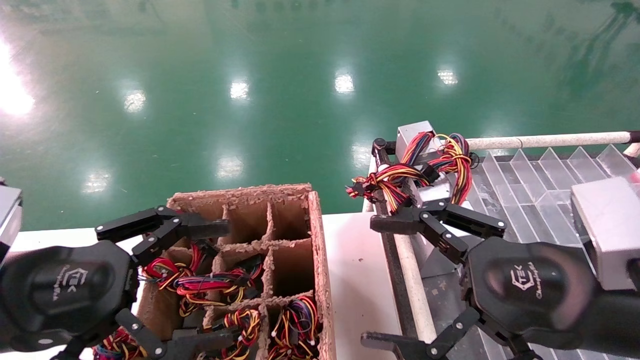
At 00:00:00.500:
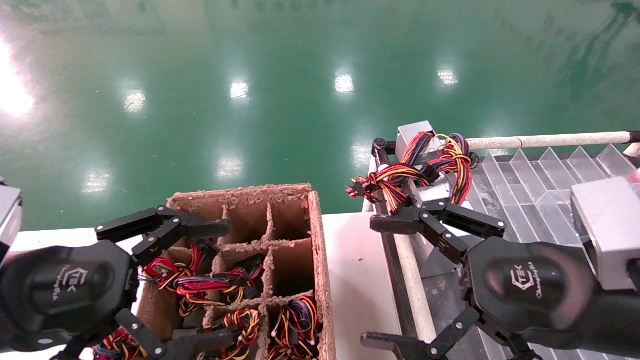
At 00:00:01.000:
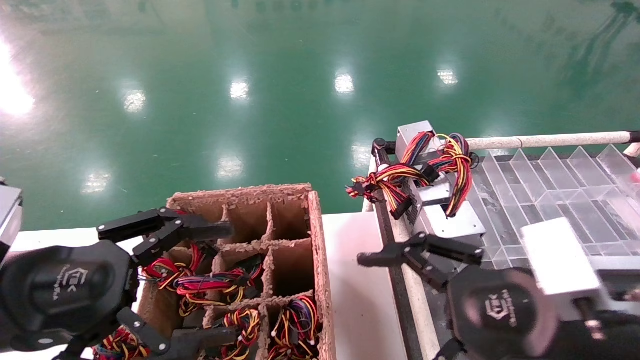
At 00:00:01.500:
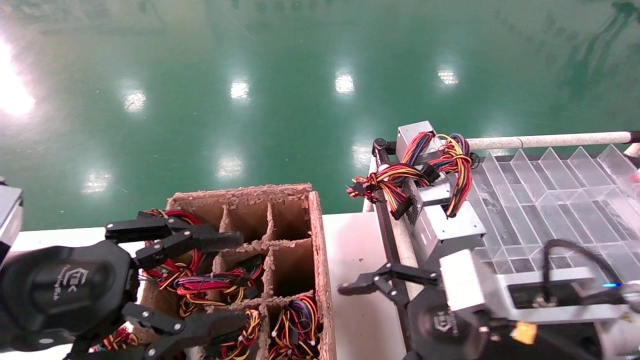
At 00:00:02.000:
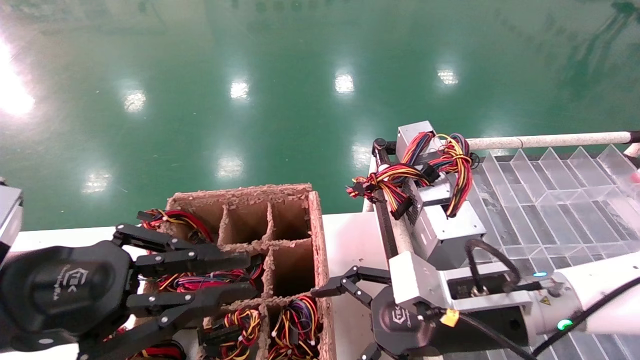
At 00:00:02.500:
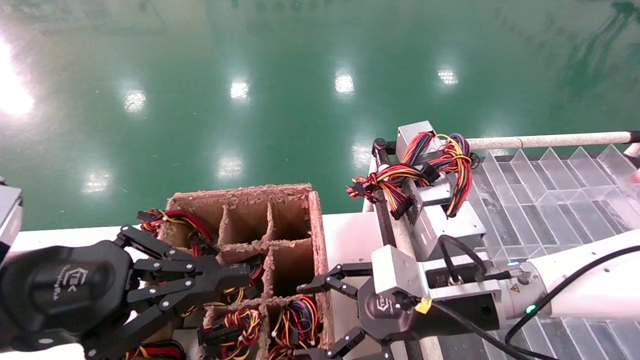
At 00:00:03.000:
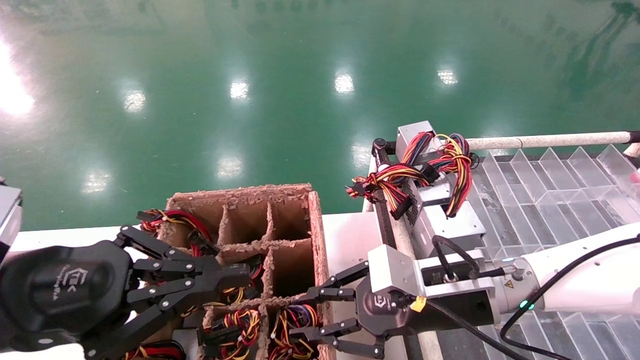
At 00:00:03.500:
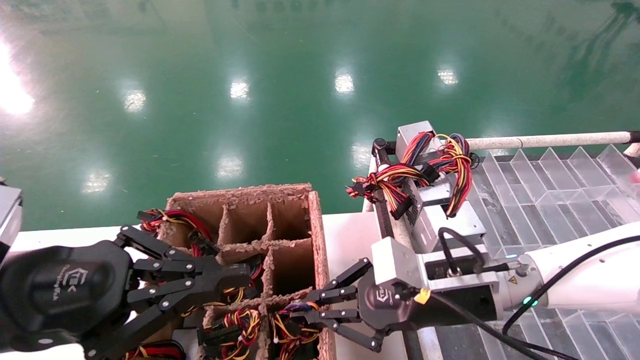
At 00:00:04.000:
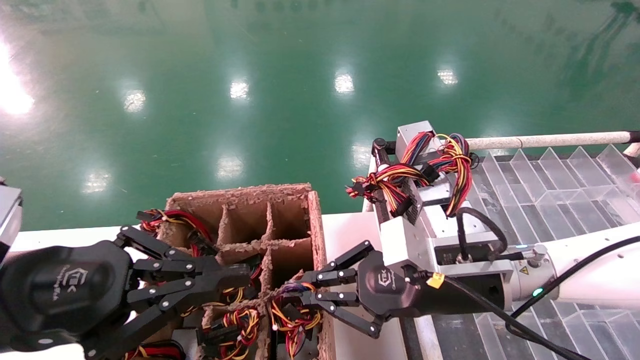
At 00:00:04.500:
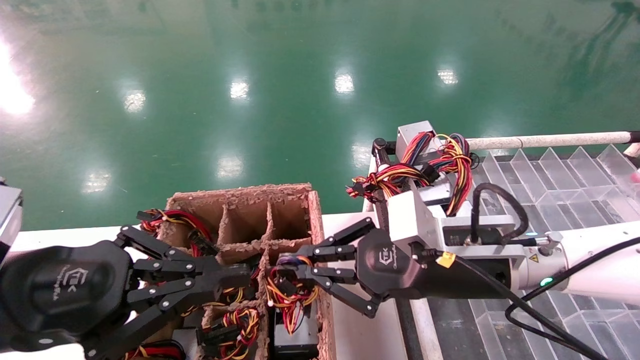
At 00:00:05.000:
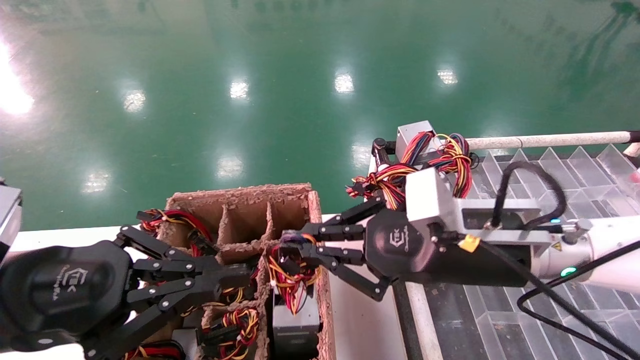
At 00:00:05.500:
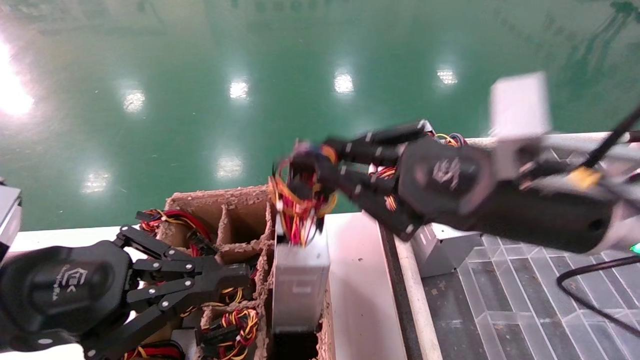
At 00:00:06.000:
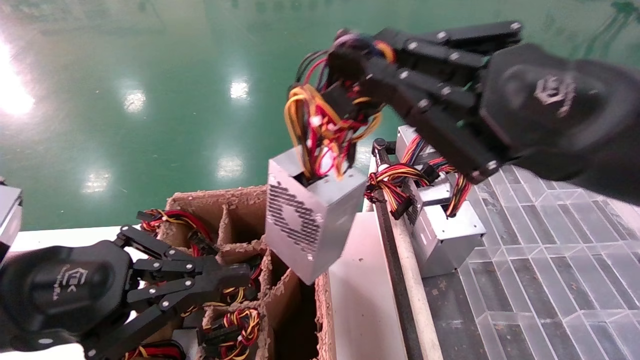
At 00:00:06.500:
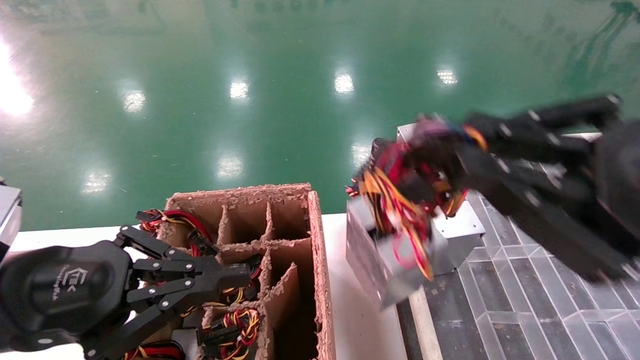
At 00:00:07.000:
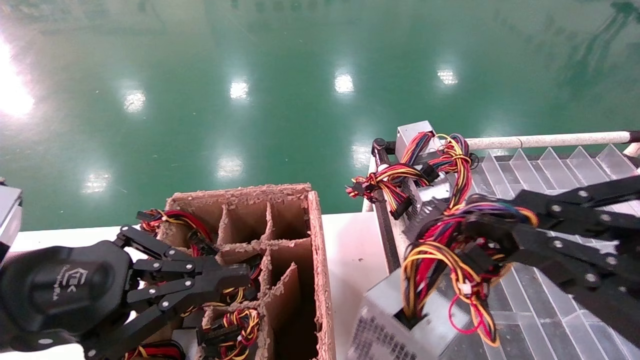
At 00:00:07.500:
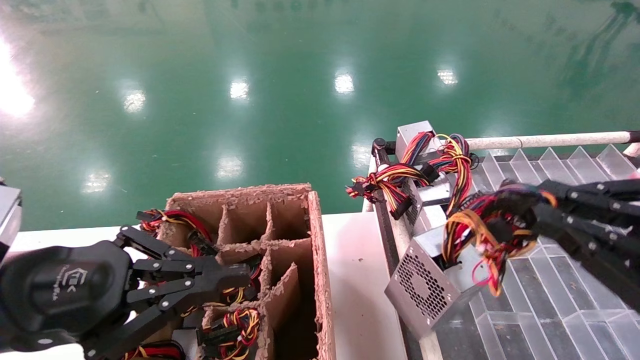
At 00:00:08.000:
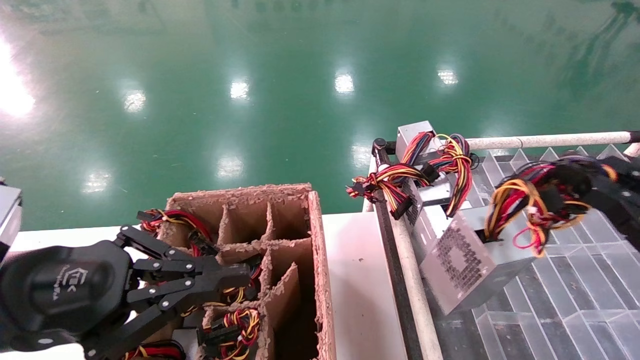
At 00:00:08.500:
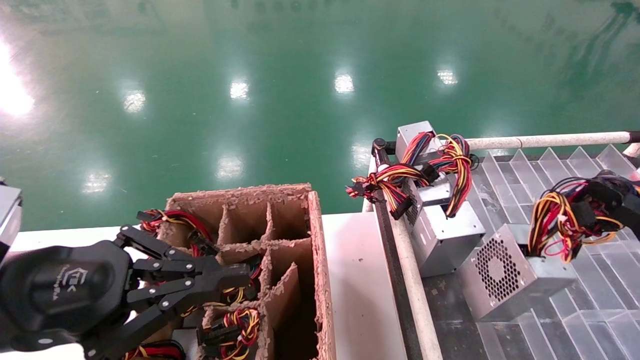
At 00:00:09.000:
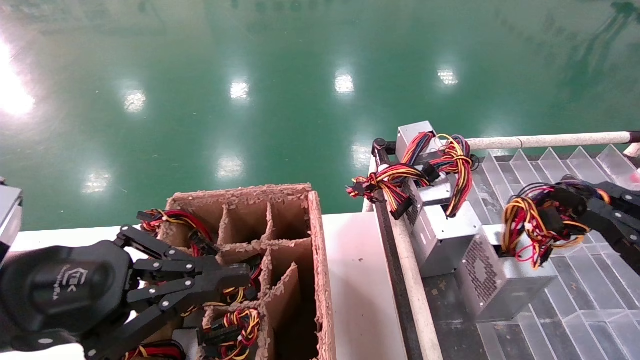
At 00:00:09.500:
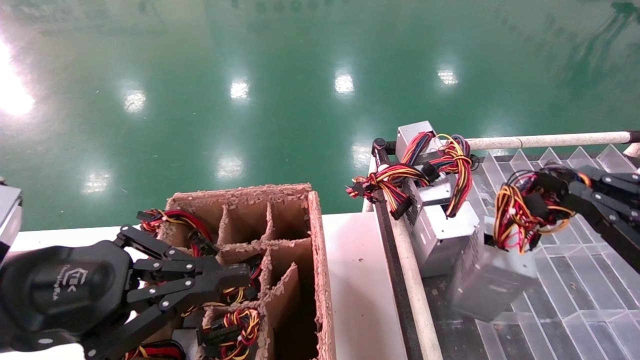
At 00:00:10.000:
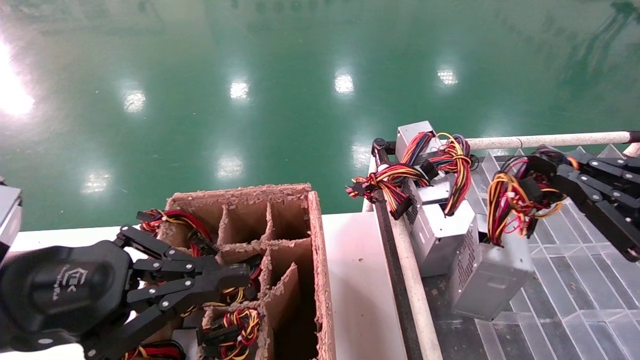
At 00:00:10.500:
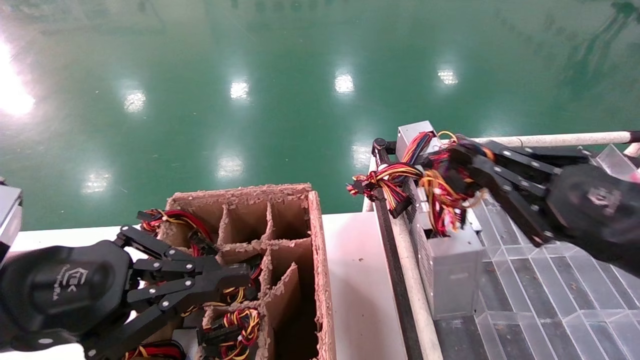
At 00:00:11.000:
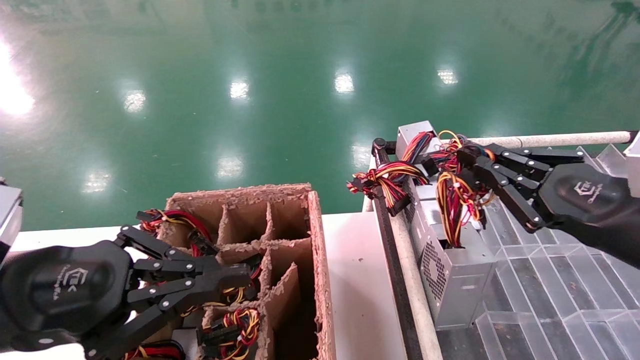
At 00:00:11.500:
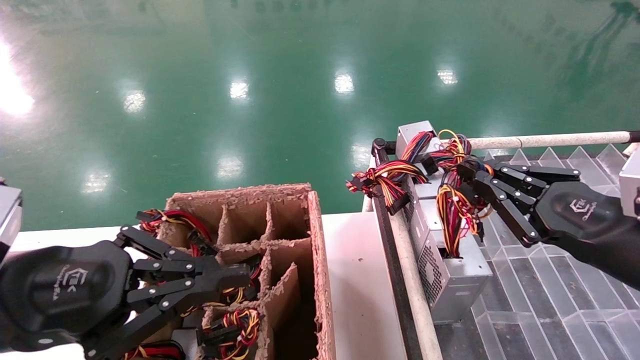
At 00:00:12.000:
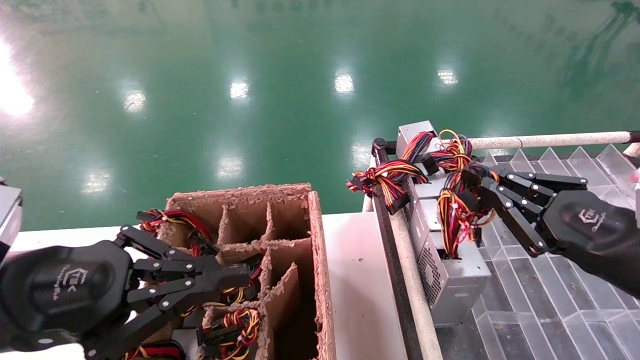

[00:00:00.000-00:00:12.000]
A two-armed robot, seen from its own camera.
Step, 00:00:01.500 to 00:00:03.000: Grab the main unit power supply from the containment box.
00:00:00.000 to 00:00:02.000: The left gripper closes its fingers. Meanwhile the right gripper goes roughly 15 cm forward, downward and to the left.
00:00:02.000 to 00:00:04.000: The right gripper closes up.
00:00:04.000 to 00:00:06.000: The right gripper travels upward and backward by approximately 20 cm.
00:00:06.000 to 00:00:08.000: The right gripper goes about 20 cm to the right and downward.
00:00:08.000 to 00:00:10.000: The grippers stay close to where they were, moving slightly.
00:00:10.000 to 00:00:12.000: The right gripper goes about 5 cm forward.

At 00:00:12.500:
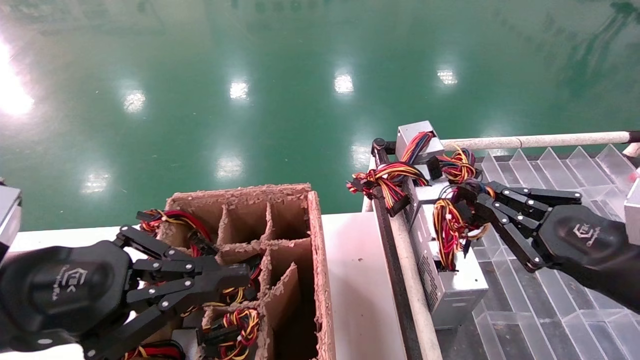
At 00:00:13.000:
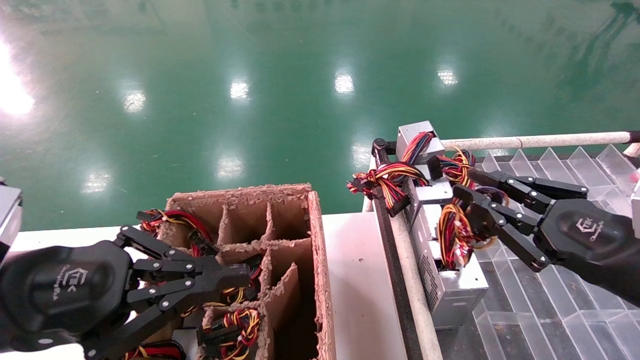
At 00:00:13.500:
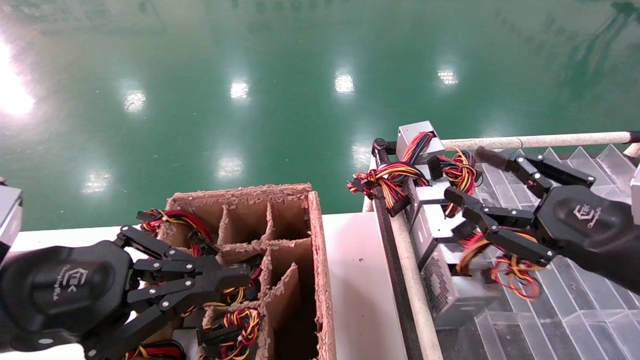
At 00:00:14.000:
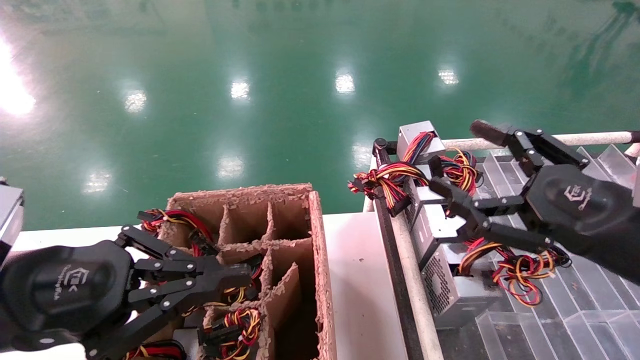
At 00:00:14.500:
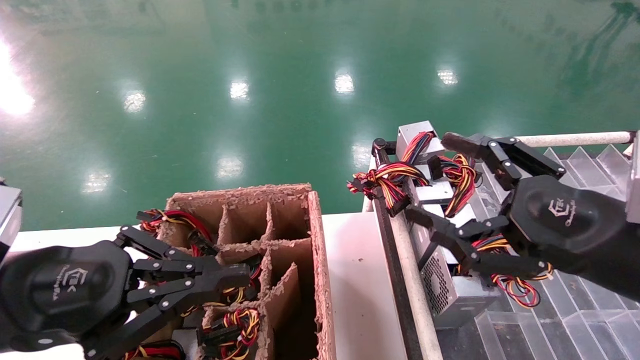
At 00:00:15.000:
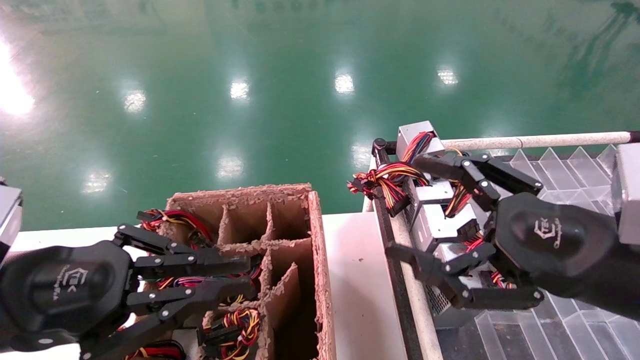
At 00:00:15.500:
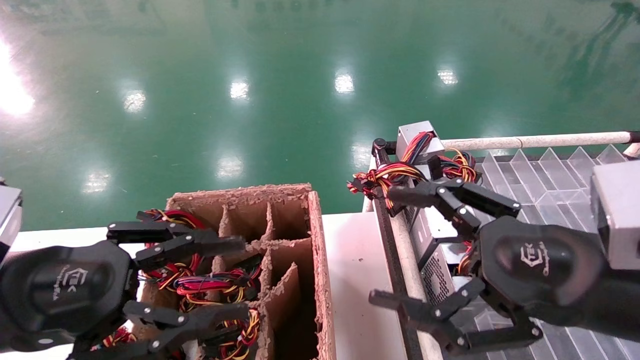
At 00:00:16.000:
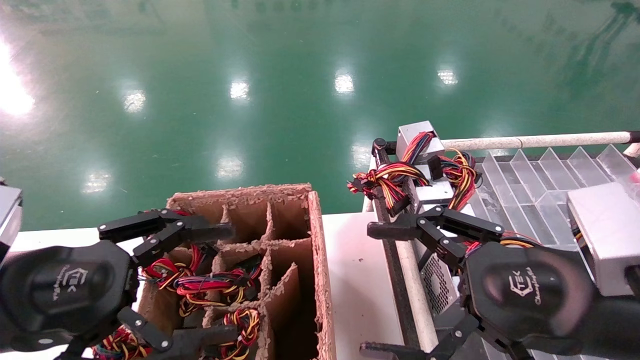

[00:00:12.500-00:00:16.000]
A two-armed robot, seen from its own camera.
00:00:12.500 to 00:00:14.500: The right gripper heads to the left, covering roughly 5 cm, and opens its fingers.
00:00:14.500 to 00:00:16.000: The left gripper opens.
